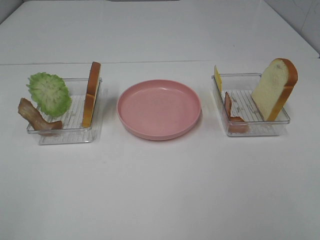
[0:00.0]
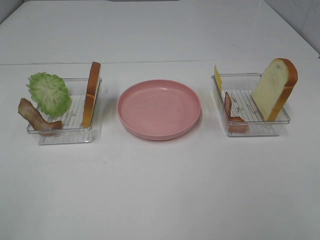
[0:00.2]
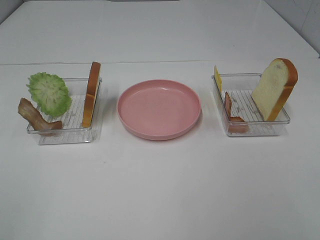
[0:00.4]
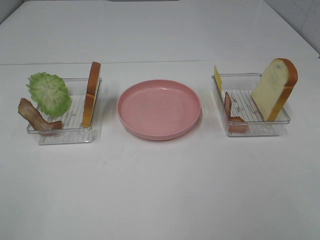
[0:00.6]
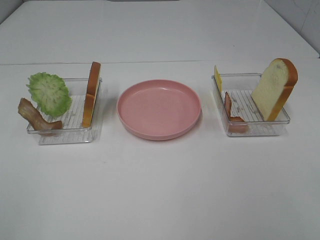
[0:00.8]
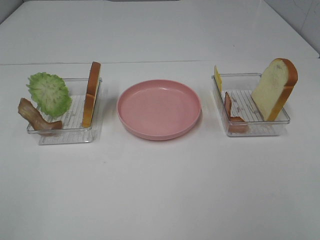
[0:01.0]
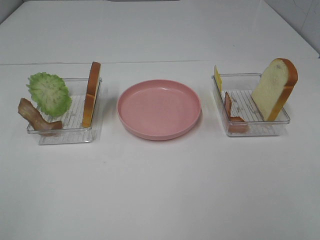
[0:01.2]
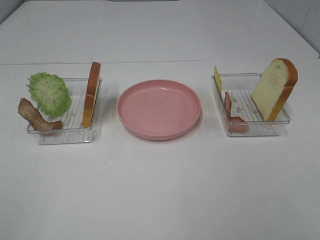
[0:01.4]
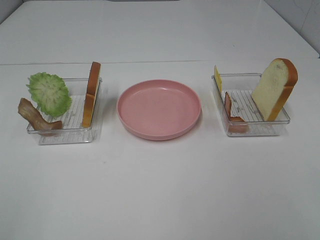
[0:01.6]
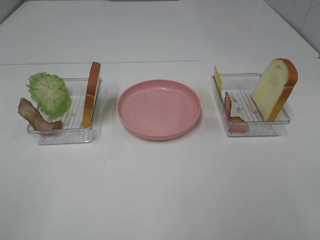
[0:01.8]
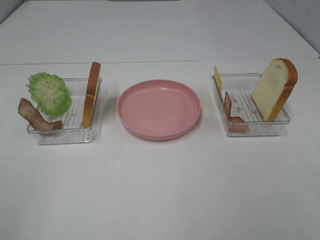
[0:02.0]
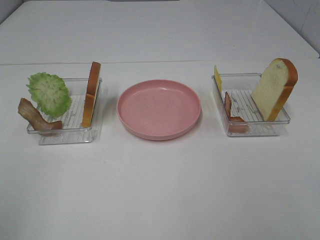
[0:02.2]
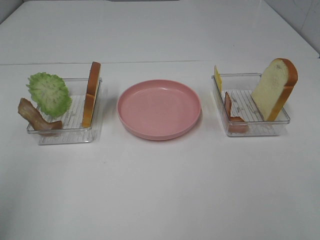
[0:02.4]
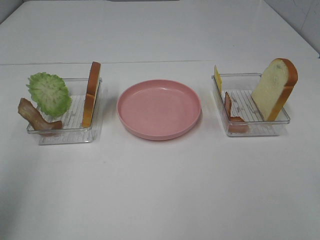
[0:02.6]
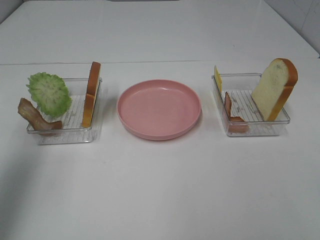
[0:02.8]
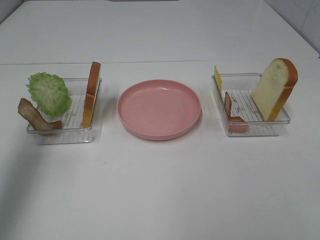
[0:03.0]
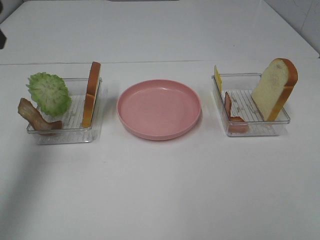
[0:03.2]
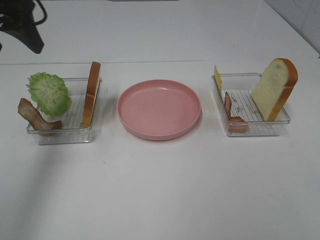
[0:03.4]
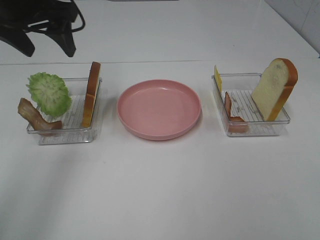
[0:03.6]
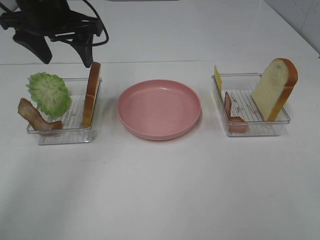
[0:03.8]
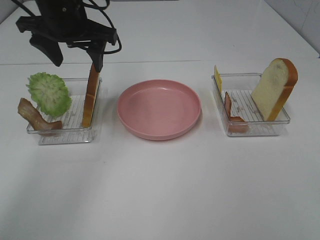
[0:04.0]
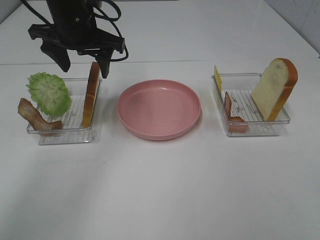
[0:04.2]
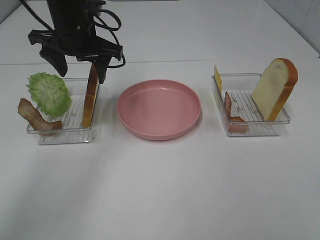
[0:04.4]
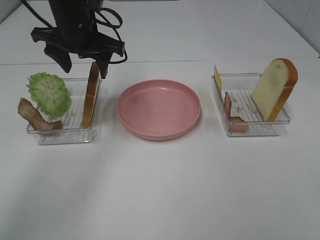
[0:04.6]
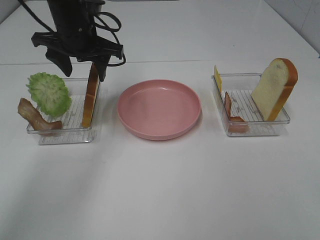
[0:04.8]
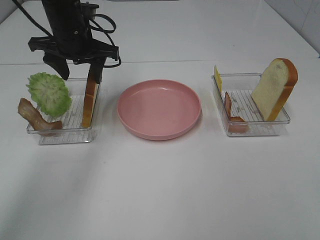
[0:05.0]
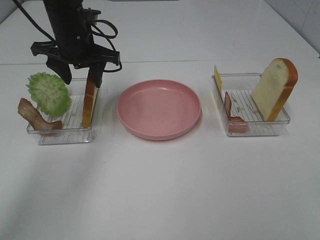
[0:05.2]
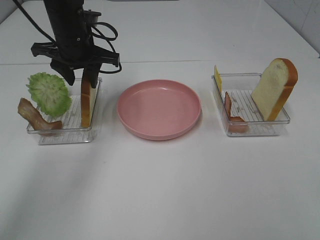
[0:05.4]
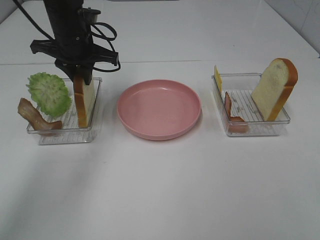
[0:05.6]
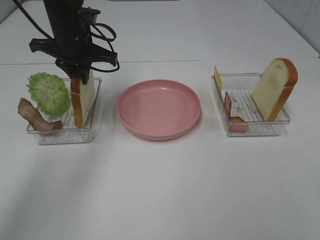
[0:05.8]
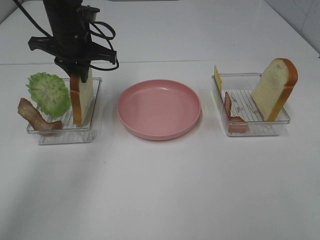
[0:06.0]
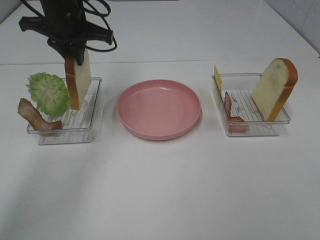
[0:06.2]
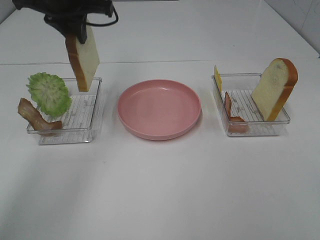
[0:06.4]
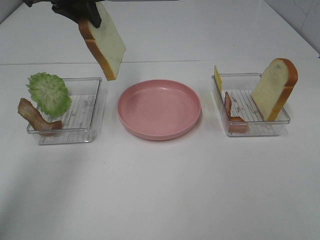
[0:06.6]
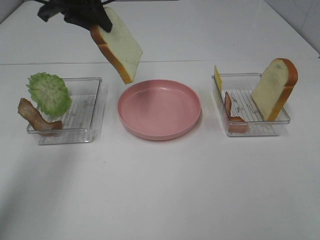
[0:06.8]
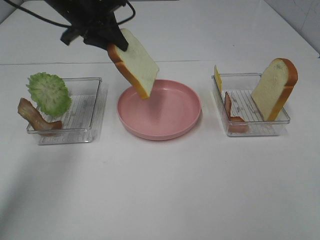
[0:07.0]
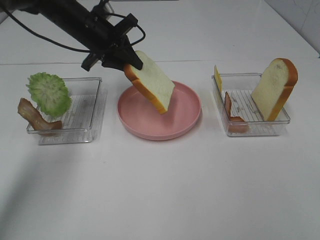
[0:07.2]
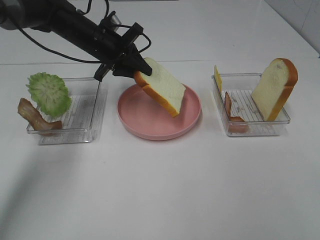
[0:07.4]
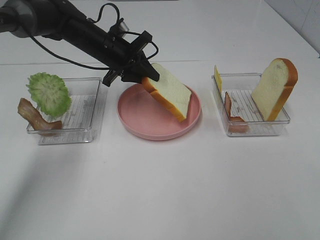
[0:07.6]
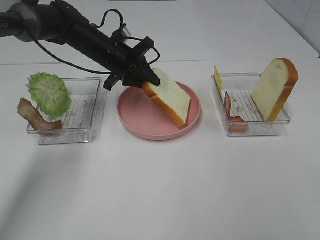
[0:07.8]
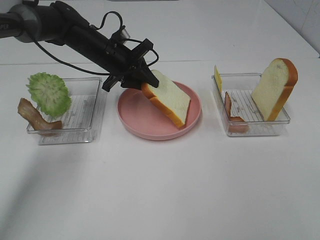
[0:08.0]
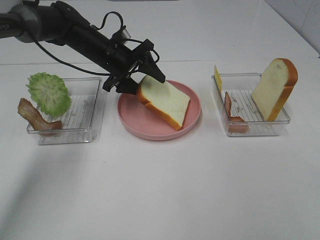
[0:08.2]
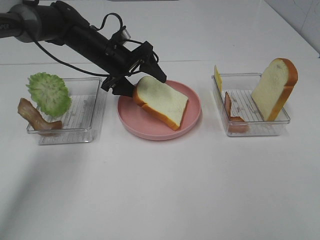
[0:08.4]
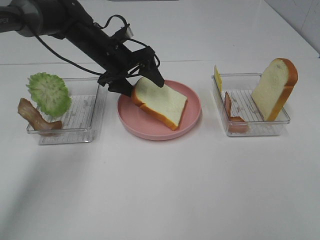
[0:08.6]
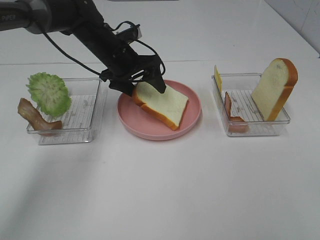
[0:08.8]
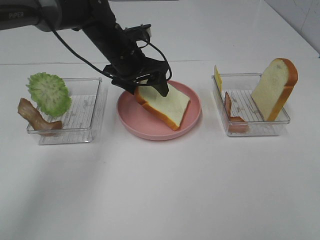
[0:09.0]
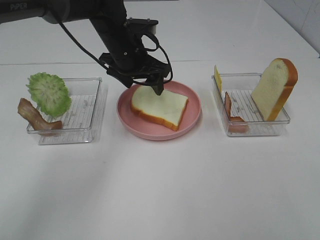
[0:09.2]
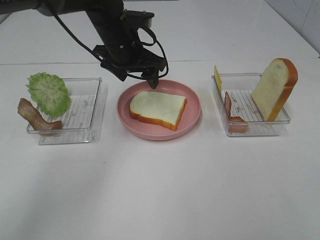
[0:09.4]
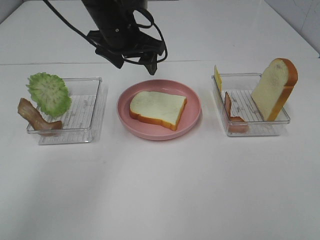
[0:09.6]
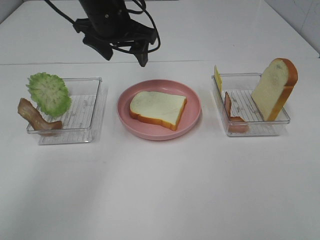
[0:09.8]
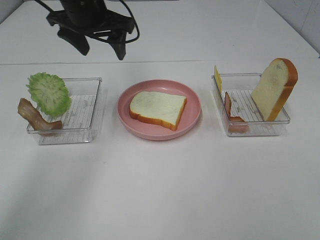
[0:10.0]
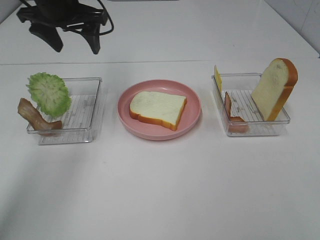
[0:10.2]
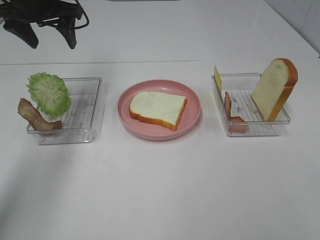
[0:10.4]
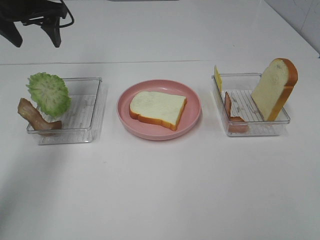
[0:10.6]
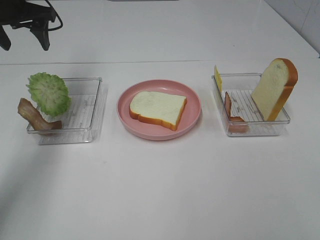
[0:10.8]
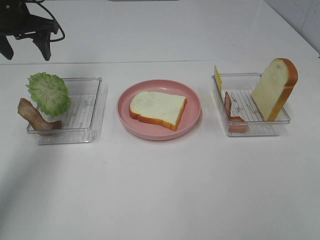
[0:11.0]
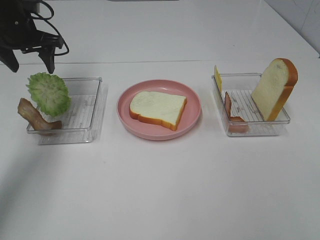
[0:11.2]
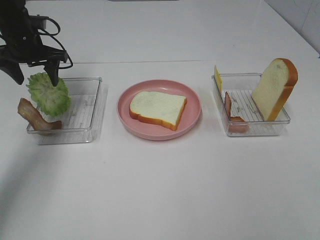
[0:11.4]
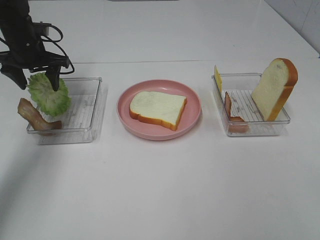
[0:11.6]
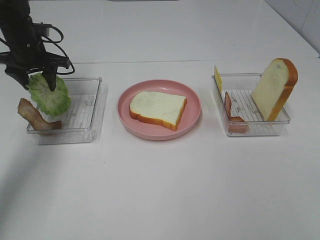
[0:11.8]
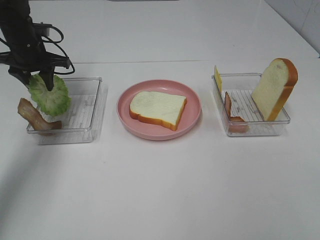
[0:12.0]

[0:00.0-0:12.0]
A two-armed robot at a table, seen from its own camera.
Task of the whole recording: Make sandwiches.
Step, 0:00.0 to 0:05.8: Left hand:grab the bread slice.
Step, 0:06.0 to 0:09.6: Left hand:place the bread slice on the plate.
0:00.0 to 0:01.6: Both grippers stay about where they are.
0:01.6 to 0:03.0: The left gripper goes roughly 25 cm forward.
0:03.0 to 0:04.4: The left gripper goes about 25 cm to the right, forward and downward.
0:04.4 to 0:06.0: The left gripper closes up.
0:06.0 to 0:07.6: The left gripper goes approximately 5 cm downward.
0:07.6 to 0:09.0: The left gripper opens its fingers.
0:09.0 to 0:10.4: The left gripper heads to the left and upward, covering about 20 cm.
0:10.4 to 0:12.0: The left gripper moves downward, roughly 10 cm, and closes its fingers.

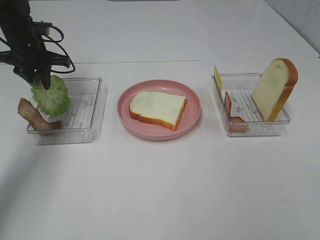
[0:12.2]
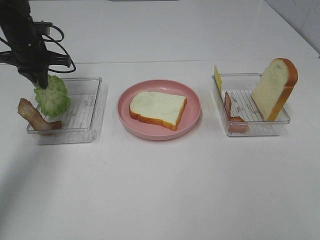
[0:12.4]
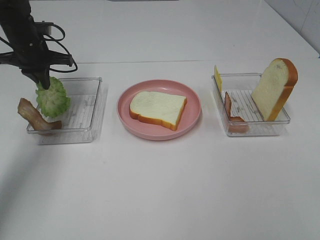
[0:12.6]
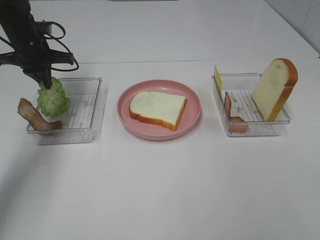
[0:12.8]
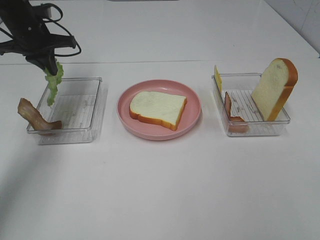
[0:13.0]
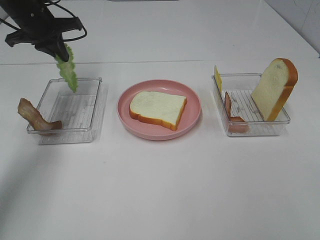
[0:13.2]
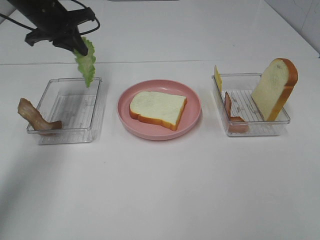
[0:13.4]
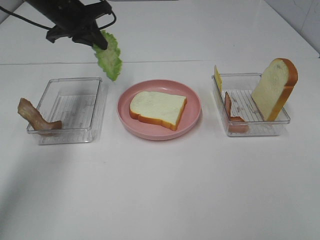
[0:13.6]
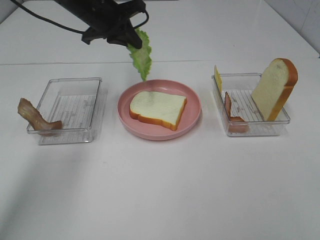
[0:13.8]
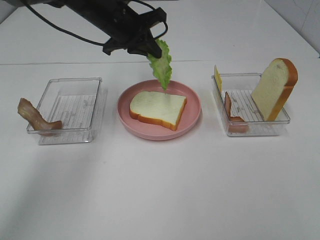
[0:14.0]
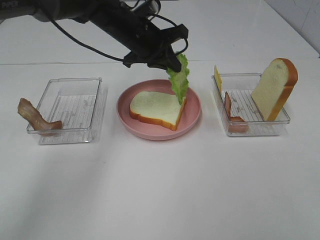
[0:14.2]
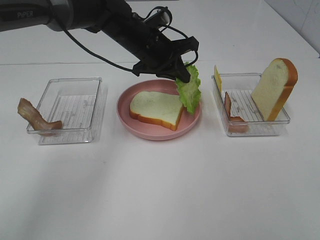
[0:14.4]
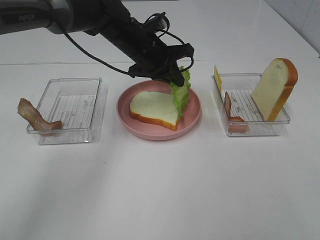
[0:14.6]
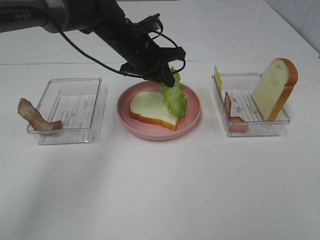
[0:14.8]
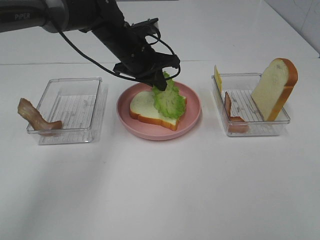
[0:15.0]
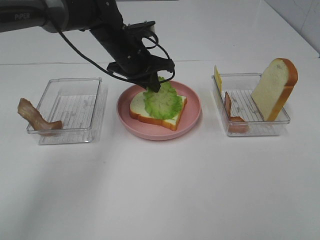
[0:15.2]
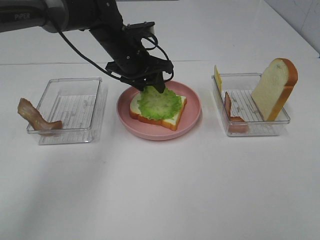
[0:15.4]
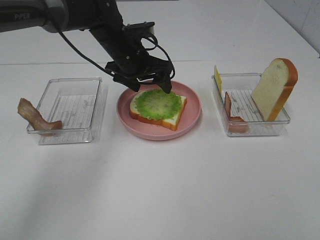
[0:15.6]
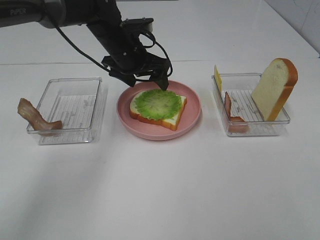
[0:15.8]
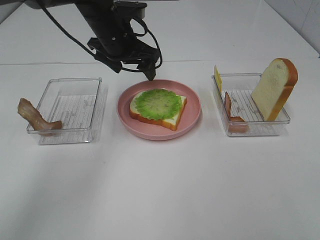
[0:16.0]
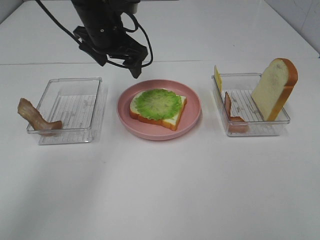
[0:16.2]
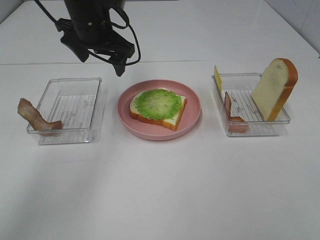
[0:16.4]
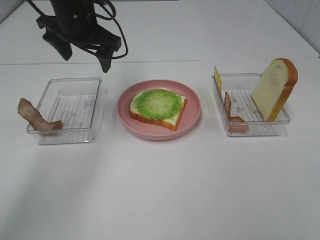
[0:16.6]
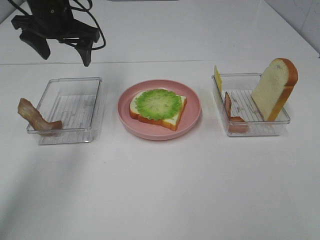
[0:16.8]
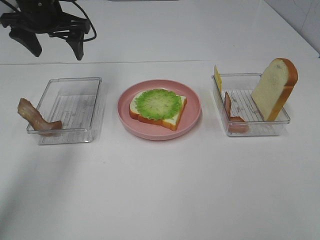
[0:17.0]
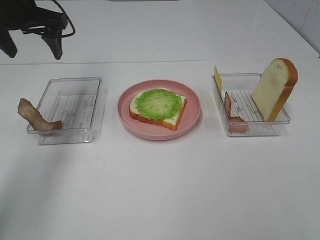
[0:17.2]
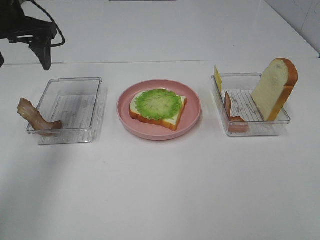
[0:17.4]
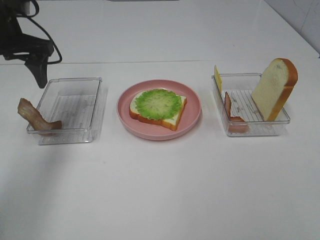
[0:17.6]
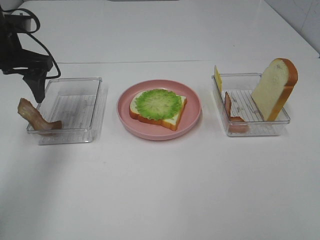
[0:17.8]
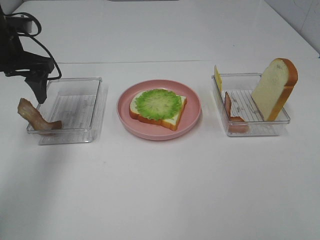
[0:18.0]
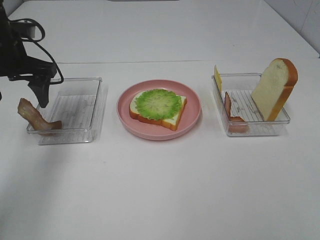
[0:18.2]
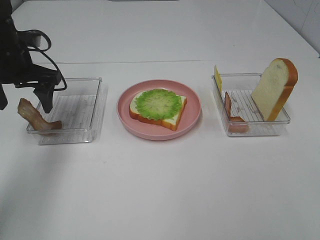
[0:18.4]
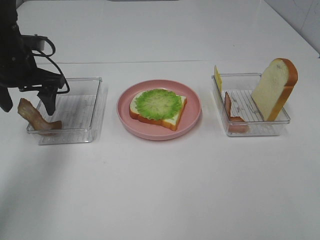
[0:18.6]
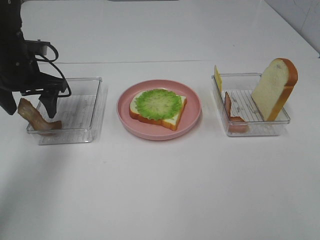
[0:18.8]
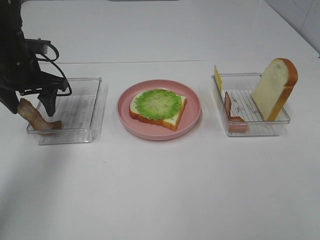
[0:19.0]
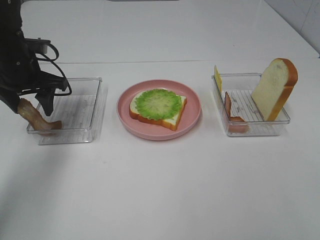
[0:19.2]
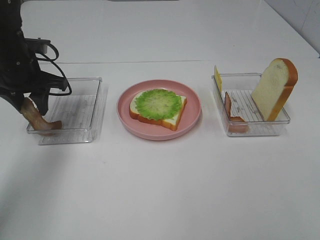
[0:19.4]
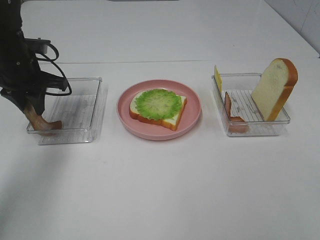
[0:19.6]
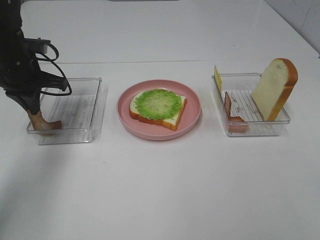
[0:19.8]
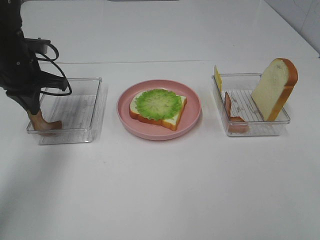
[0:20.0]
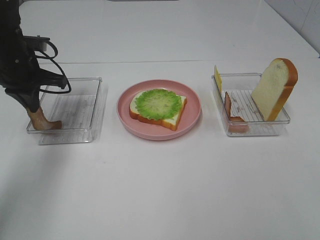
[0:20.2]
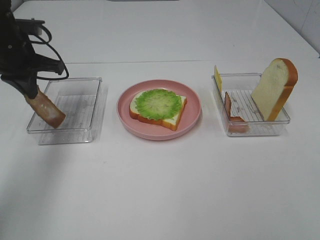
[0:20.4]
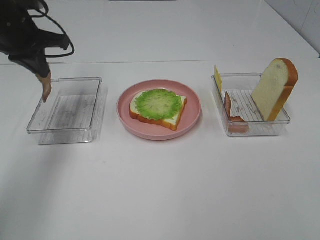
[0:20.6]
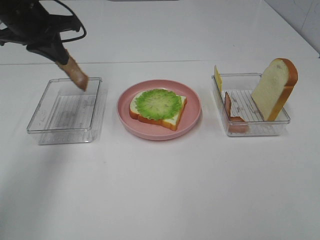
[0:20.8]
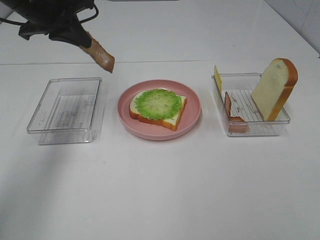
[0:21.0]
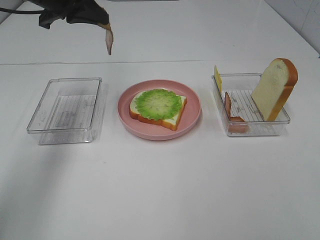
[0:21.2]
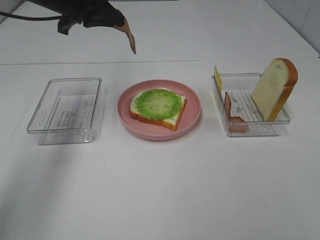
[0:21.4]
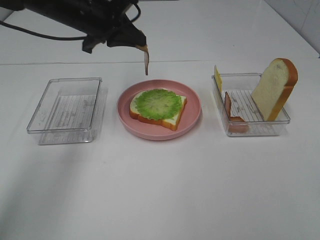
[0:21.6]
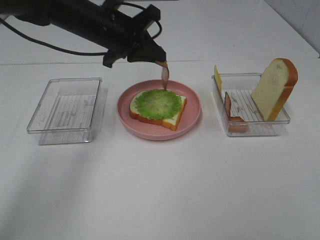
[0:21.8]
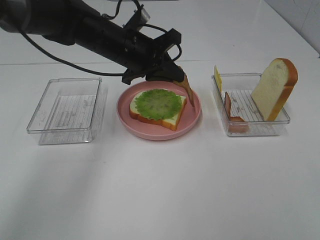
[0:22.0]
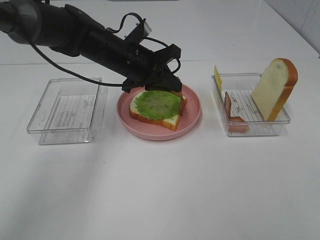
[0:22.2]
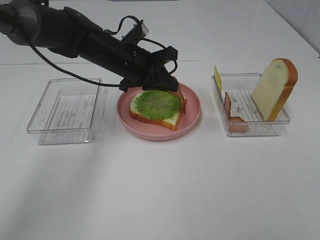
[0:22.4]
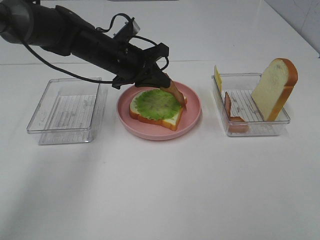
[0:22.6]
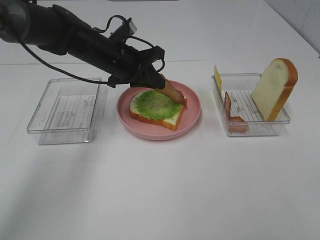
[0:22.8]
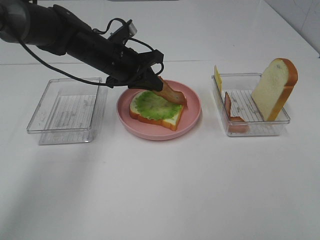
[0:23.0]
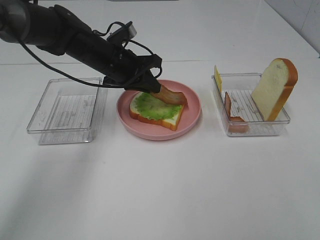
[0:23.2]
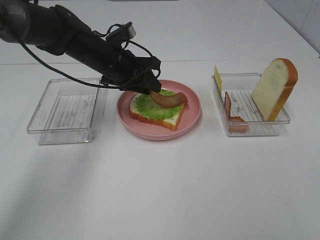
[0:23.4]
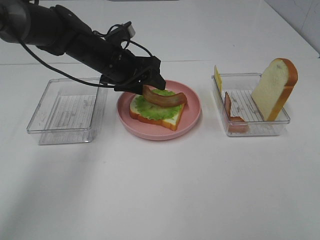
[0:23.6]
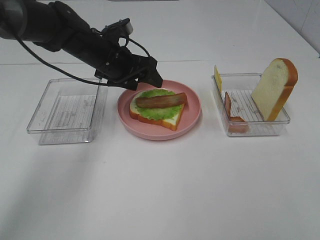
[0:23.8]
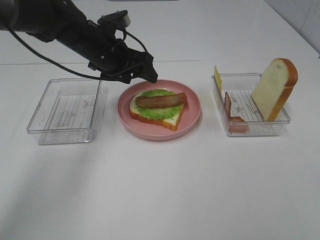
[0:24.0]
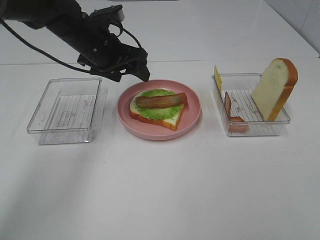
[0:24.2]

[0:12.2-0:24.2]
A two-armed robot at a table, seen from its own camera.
Task of the whole recording: Make sandwiches.
Step, 0:13.4 to 0:15.4: Left hand:place the lettuce slice on the bread slice.
Step, 0:15.6 to 0:20.0: Left hand:grab the bacon.
Step, 0:20.2 to 0:24.0: Left hand:place bacon on lettuce slice.
0:12.2 to 0:13.8: The left gripper travels to the right and upward by approximately 15 cm.
0:13.8 to 0:15.2: The left gripper moves downward and to the right, some 10 cm.
0:15.2 to 0:16.6: The left gripper goes some 10 cm upward and to the left, and opens up.
0:16.6 to 0:18.2: The left gripper heads to the left and backward, covering some 10 cm.
0:18.2 to 0:19.8: The left gripper closes.
0:19.8 to 0:21.2: The left gripper travels upward and to the right by about 15 cm.
0:21.2 to 0:22.6: The left gripper travels downward and to the right by some 15 cm.
0:22.6 to 0:24.2: The left gripper ends up some 5 cm from where it was, and opens.
